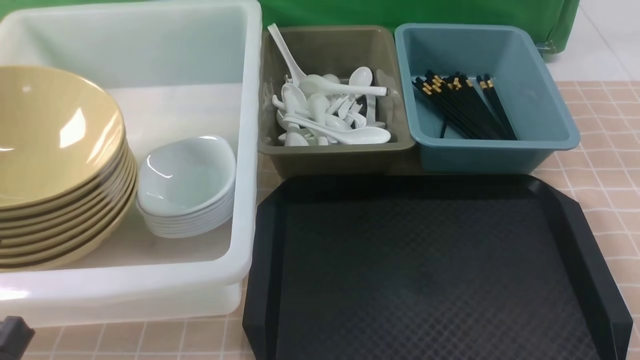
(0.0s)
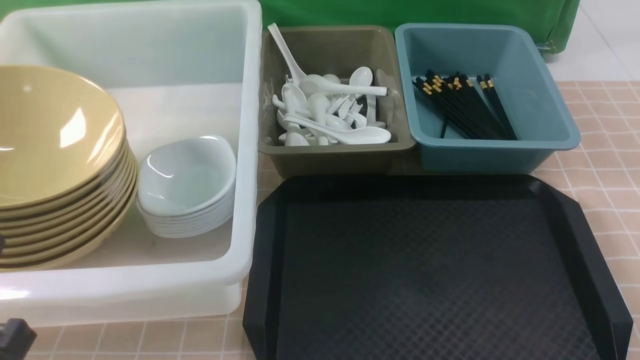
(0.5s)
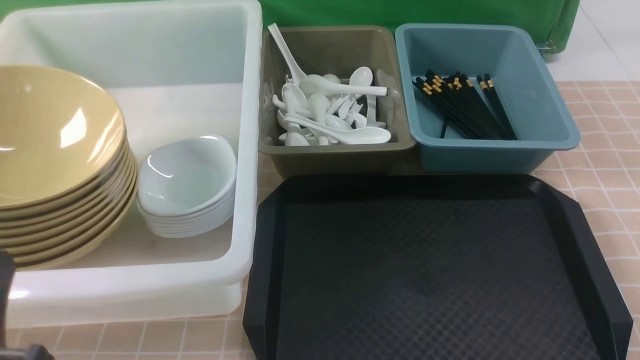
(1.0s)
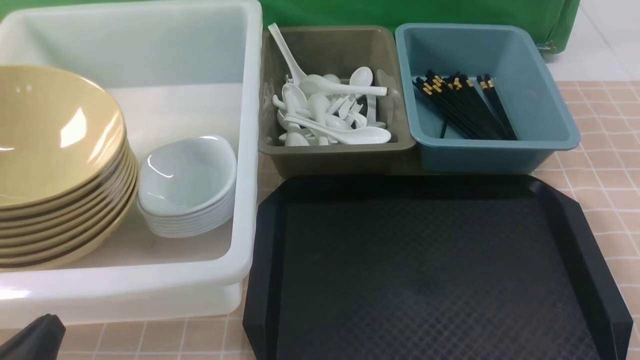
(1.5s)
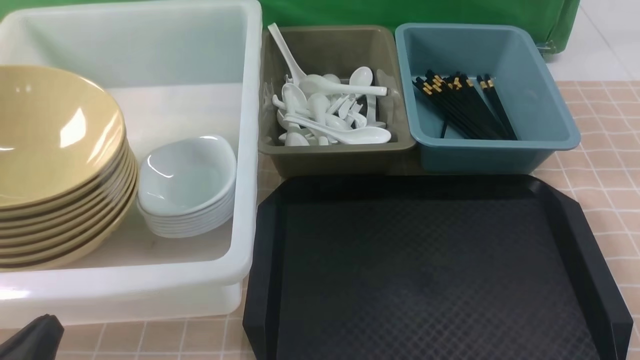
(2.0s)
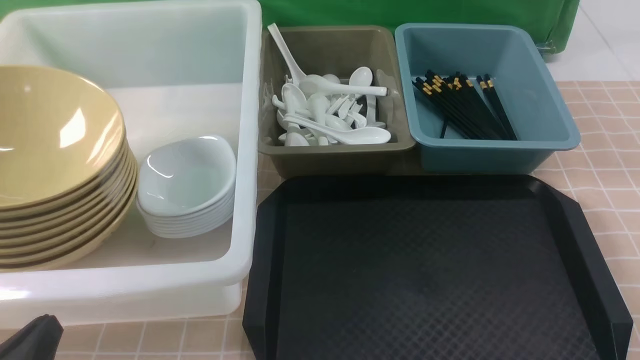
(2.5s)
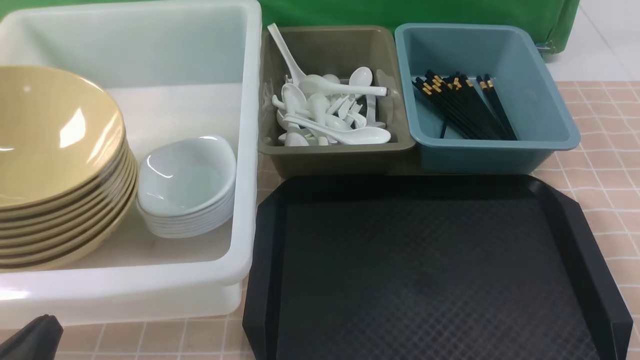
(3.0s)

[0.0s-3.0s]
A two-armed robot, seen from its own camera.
Task of the whole recording: on brown table put chopsticks spoon bowls plates into blue grey white boxes.
0.0s to 1.5s: The left gripper shifts approximately 10 cm downward.
1.5s to 3.0s: The two grippers keep their place.

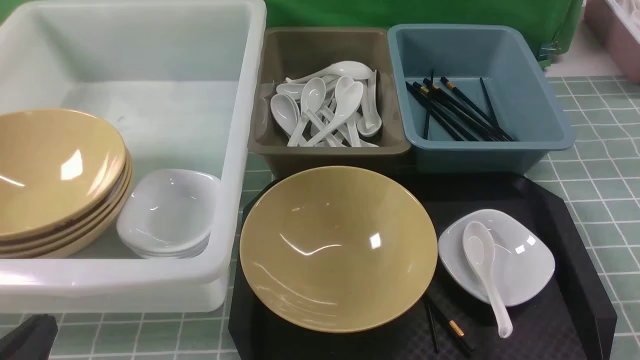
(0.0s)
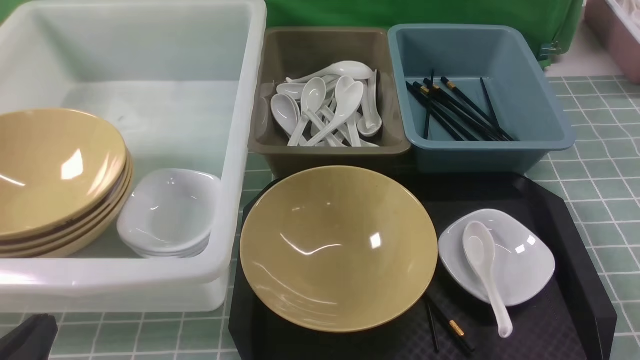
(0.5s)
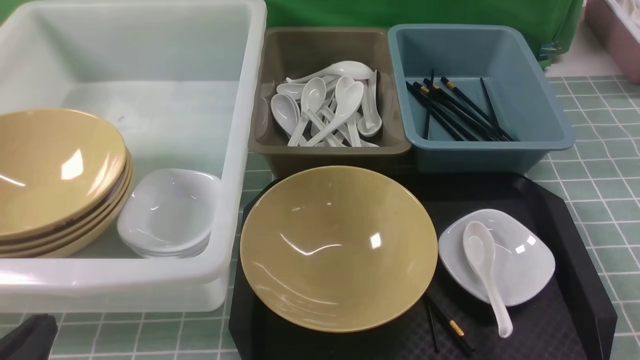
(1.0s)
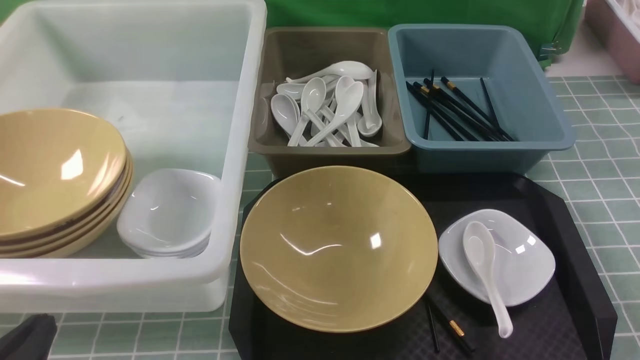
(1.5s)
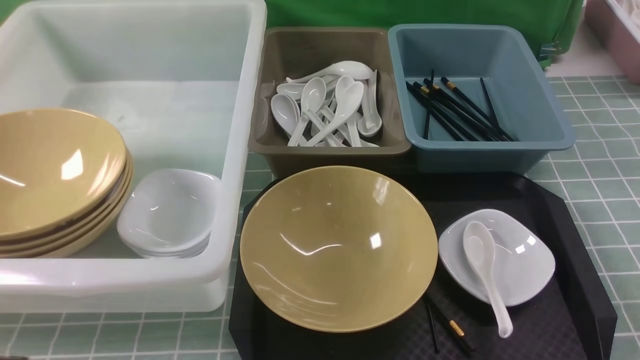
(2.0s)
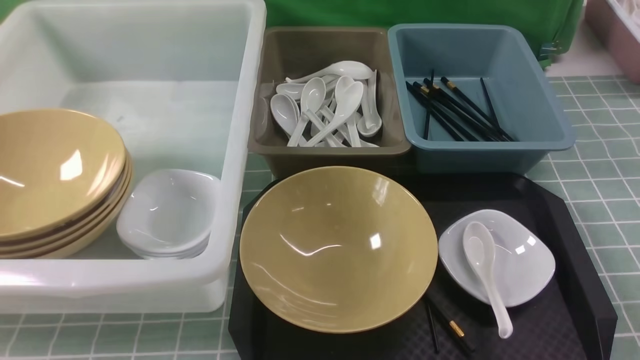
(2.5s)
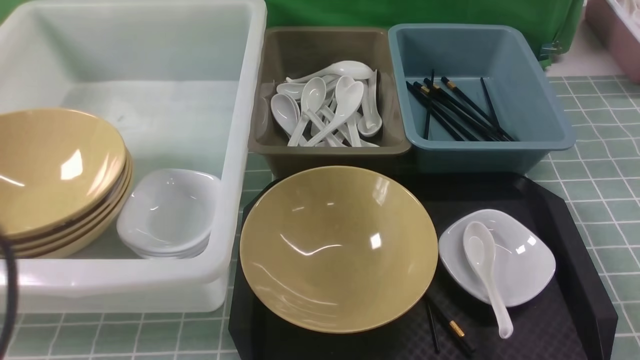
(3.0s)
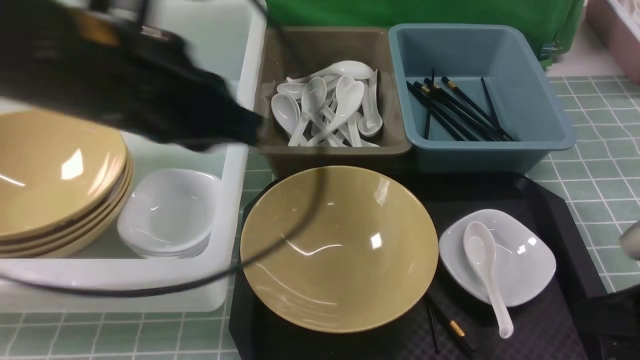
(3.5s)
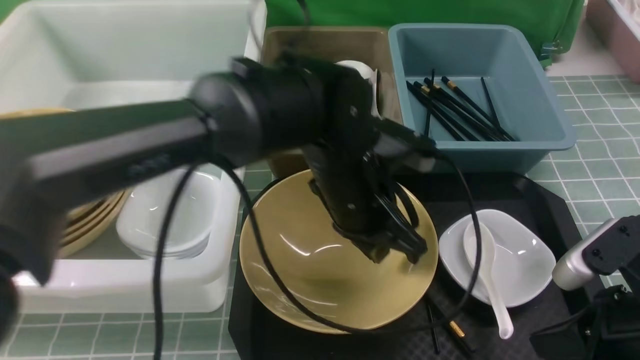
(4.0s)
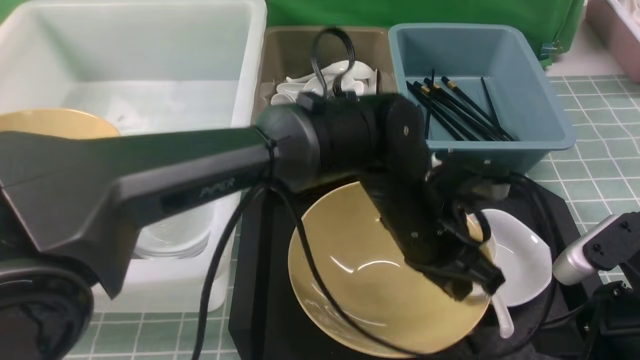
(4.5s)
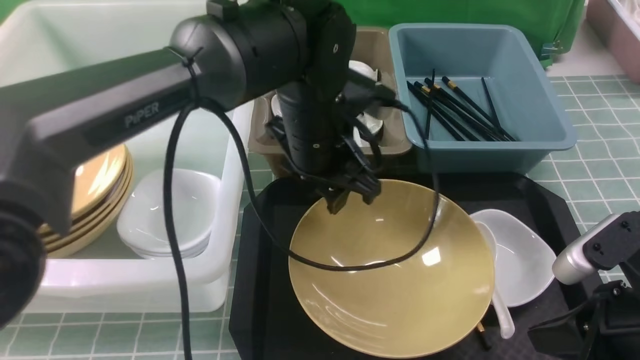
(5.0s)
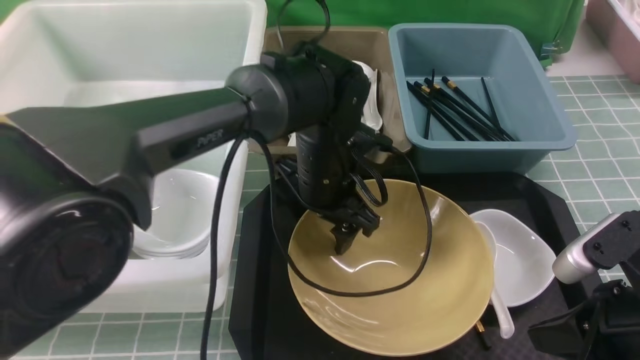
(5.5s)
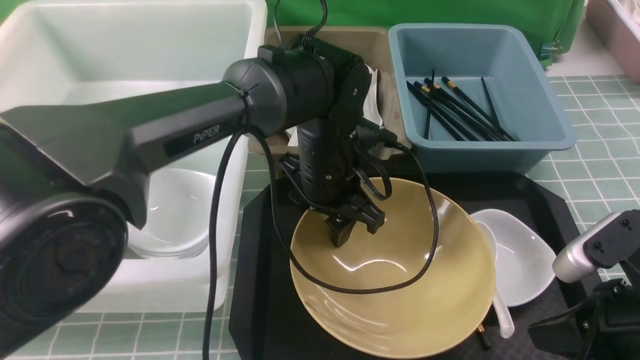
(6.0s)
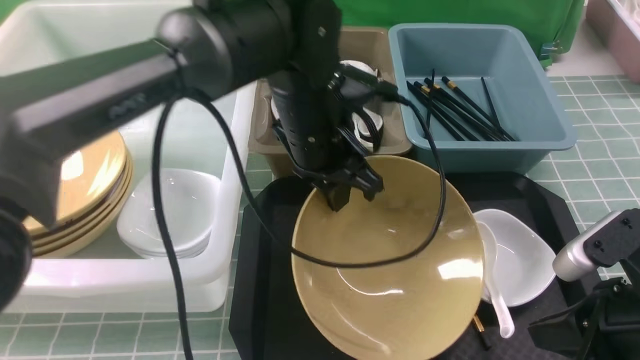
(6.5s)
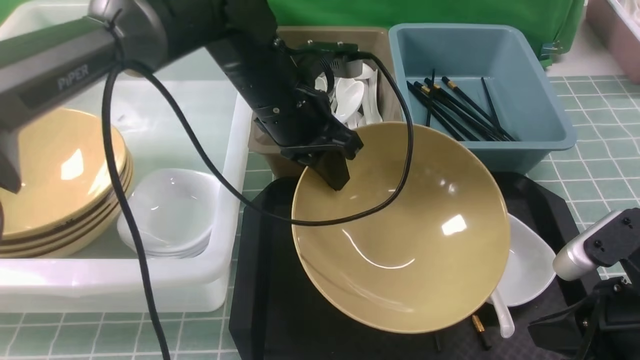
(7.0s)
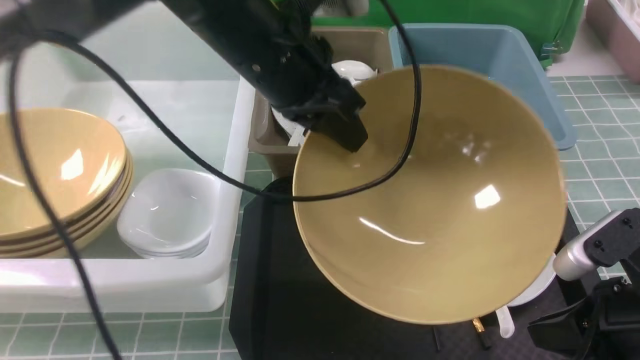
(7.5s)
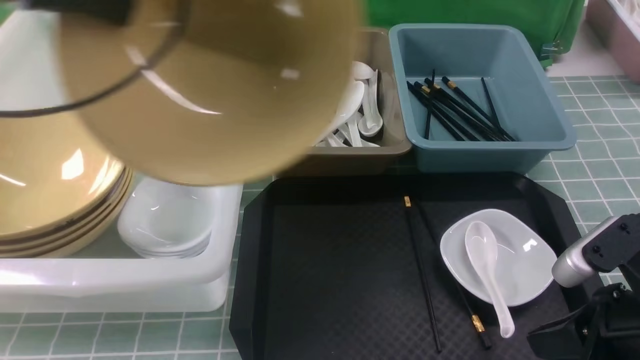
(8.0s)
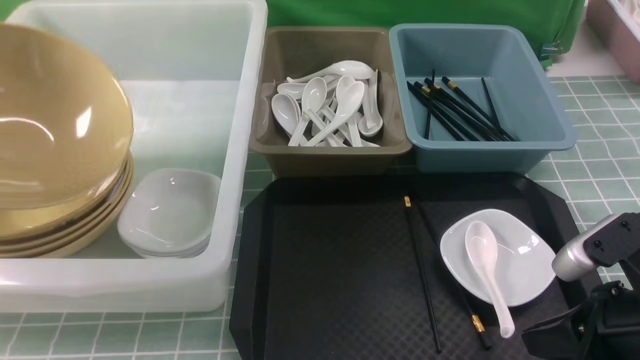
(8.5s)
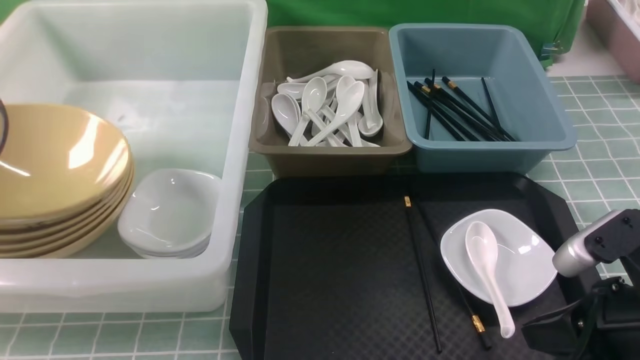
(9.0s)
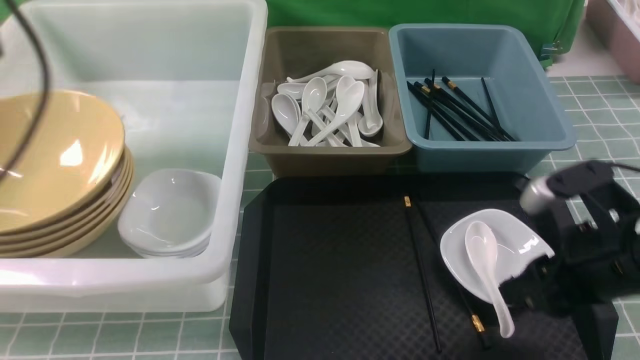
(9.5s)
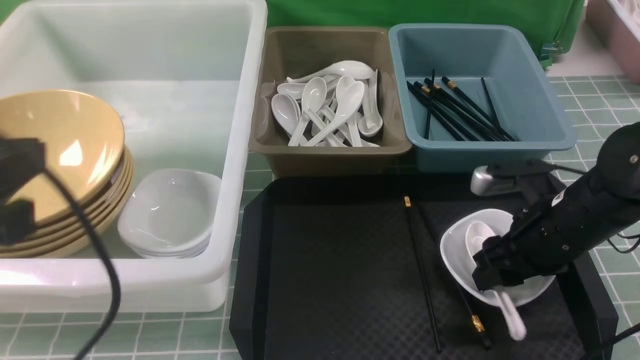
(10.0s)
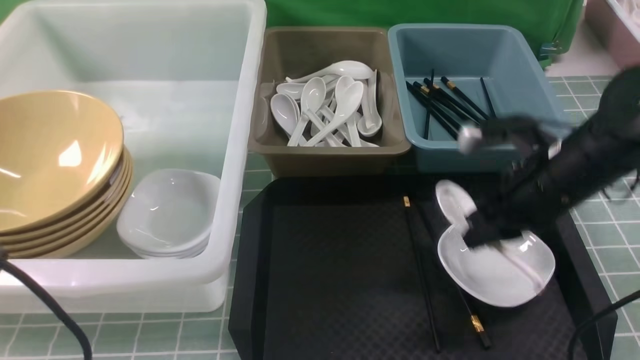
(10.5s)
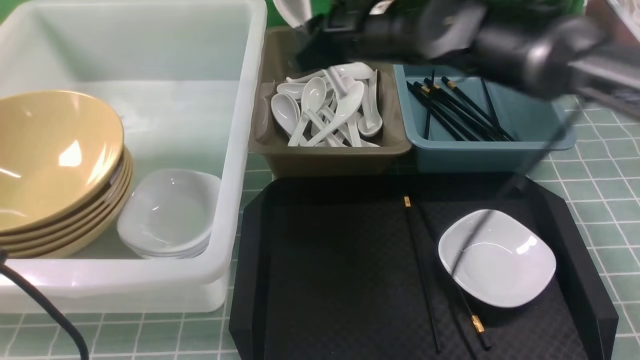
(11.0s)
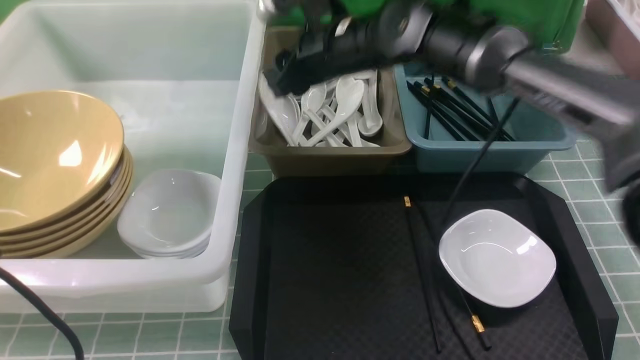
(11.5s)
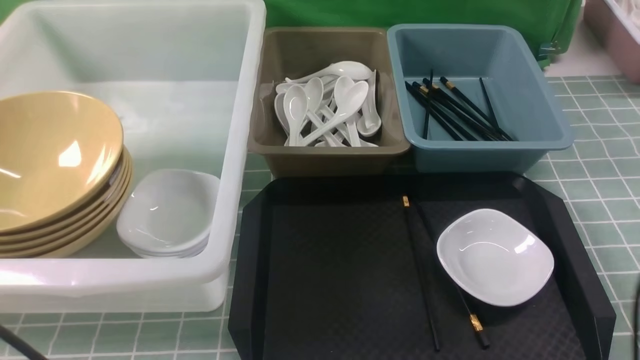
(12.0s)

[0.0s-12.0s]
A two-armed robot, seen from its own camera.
Task of the whole recording: on blue table put chopsticks spoon bowls plates into blue grey white boxes.
Step, 0.0s to 6.5s: use the left arm to grab the yellow noodle bowl on the left.
Step, 7.0s to 9.5s: use the left arm to put the noodle bowl into the large storage box on the left.
Step, 10.5s to 11.0s: use the right arm to put the soup spoon into the small storage box in the middle.
0.0s to 2.0s: The left gripper is displaced upward by approximately 5 cm.
2.0s to 4.0s: The left gripper shifts about 35 cm to the right and forward; the right gripper is displaced forward and to the left by some 10 cm, and goes upward and returns, about 10 cm each way.
4.0s to 6.0s: The left gripper heads forward, covering some 5 cm, and opens up.
6.0s to 8.0s: The left gripper heads to the left and upward, covering approximately 35 cm, and closes up.
8.0s to 10.0s: The left gripper shifts some 20 cm backward and downward, and opens, then closes again. Meanwhile the right gripper travels forward by about 15 cm, and opens.
10.0s to 12.0s: The left gripper moves downward, some 5 cm, while the right gripper moves upward, some 25 cm, and closes up.

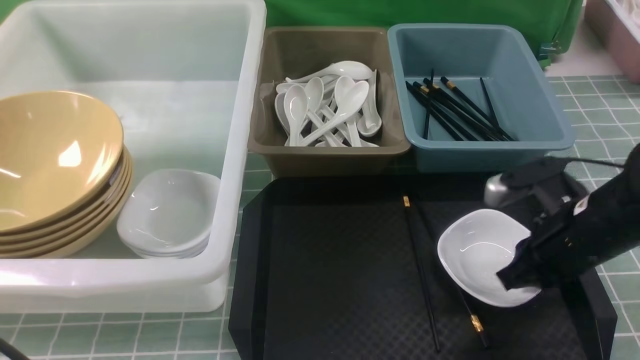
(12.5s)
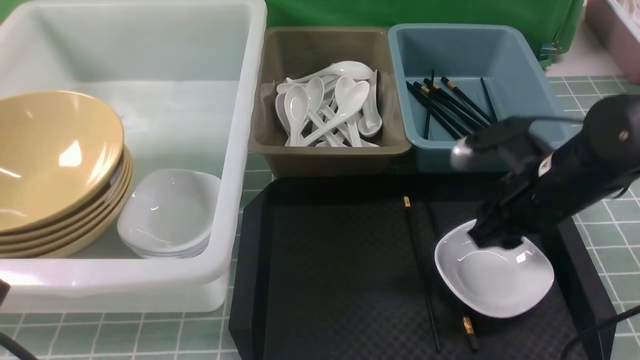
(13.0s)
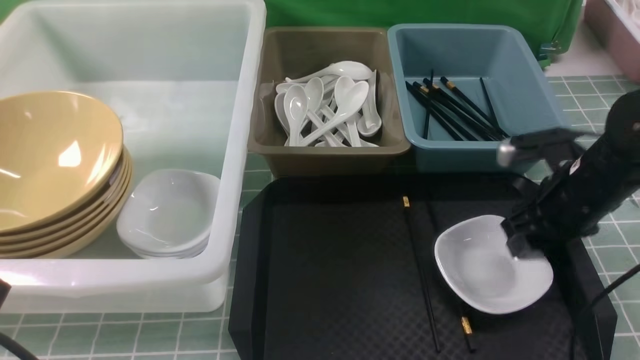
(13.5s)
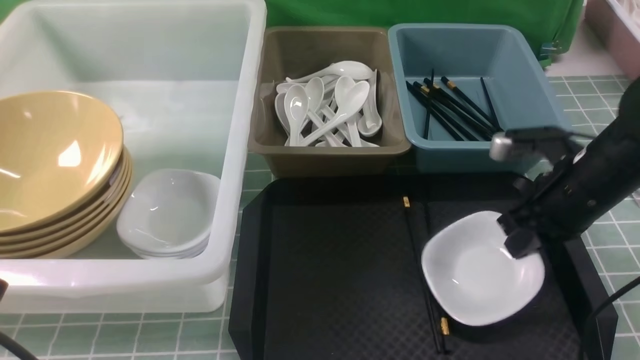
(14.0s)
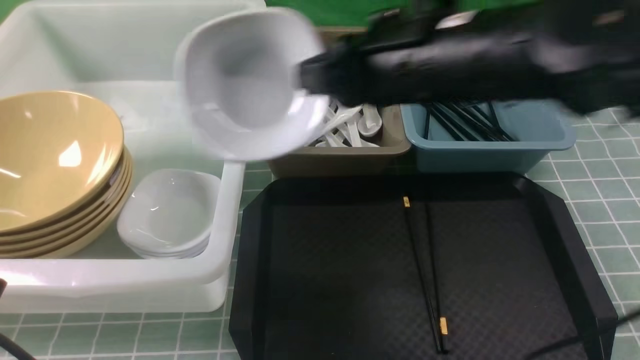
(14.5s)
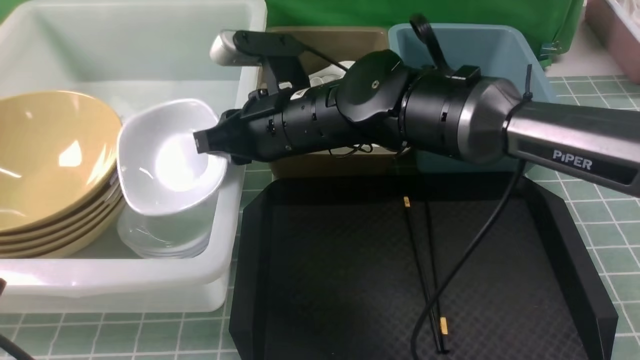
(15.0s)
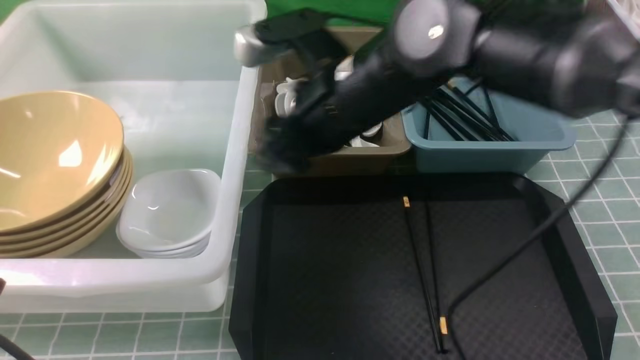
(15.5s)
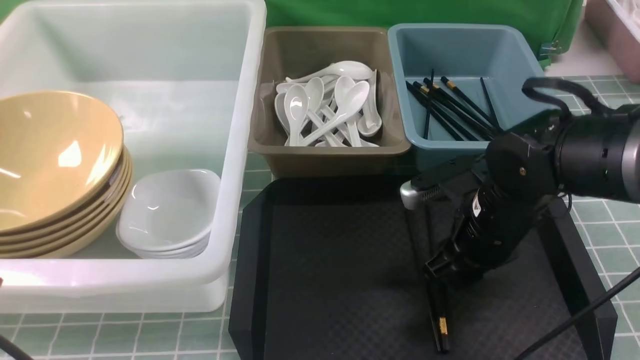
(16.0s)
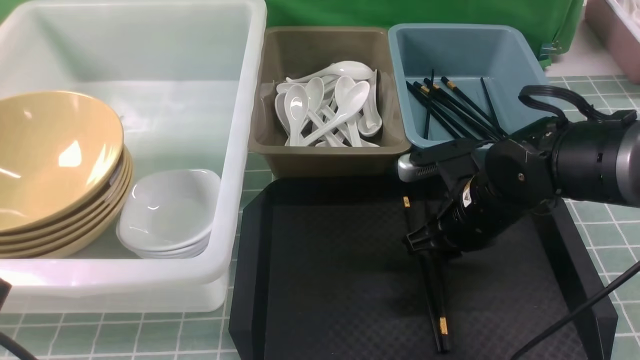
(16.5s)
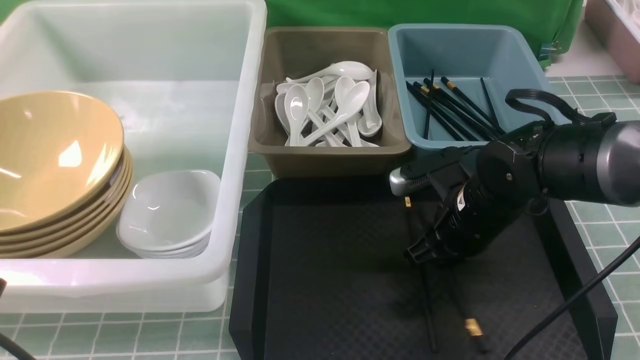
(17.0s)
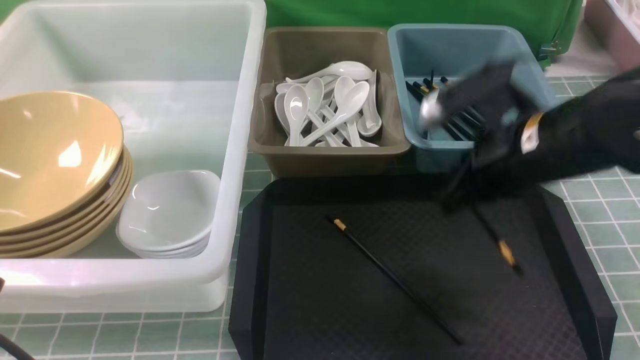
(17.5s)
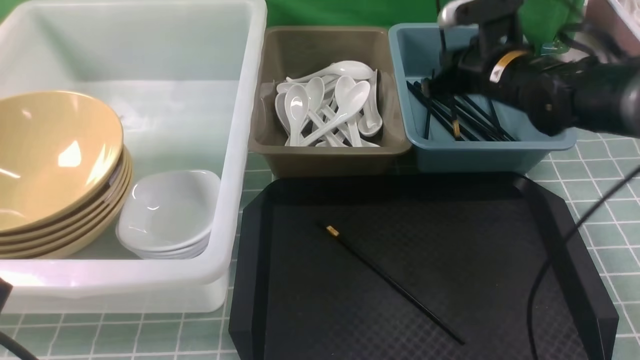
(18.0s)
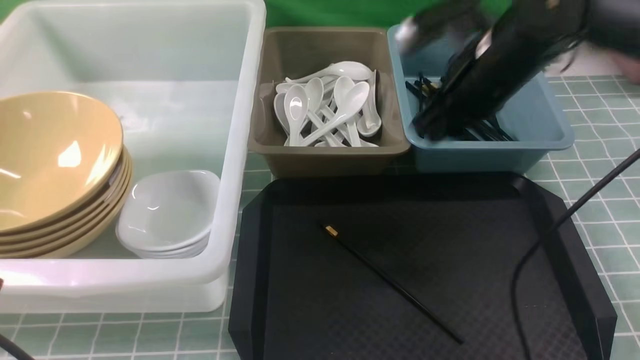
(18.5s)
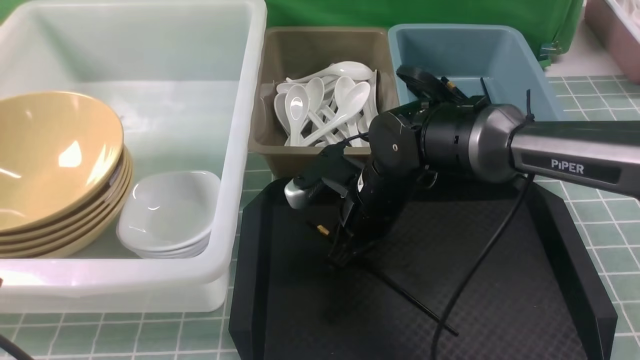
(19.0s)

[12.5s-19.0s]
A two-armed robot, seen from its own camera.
Task of the whole recording: on blue table put chopsticks spoon bowls plates into blue grey white boxes.
Step, 12.5s to 14.0s: use the right arm to grab the plate.
Step, 14.5s to 15.0s: use the right arm to put the plate into the large storage box on the left.
Step, 15.5s to 17.0s: use the right arm to grab a chopstick.
Step, 17.5s to 18.0s: use the right arm to put a chopstick into the small storage box on the right.
12.5s to 14.5s: The right gripper travels to the left and upward by some 20 cm, and opens and closes again.
14.5s to 17.0s: The right gripper is displaced downward and to the right by approximately 20 cm, and opens, then closes again.
17.0s to 19.0s: The right gripper is displaced to the left by approximately 10 cm.
